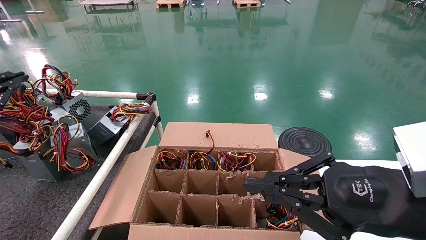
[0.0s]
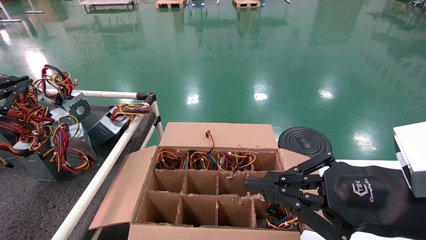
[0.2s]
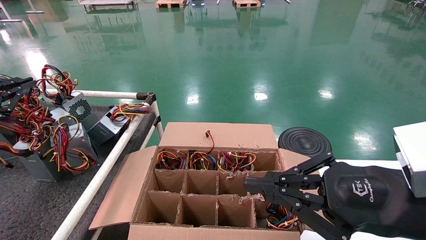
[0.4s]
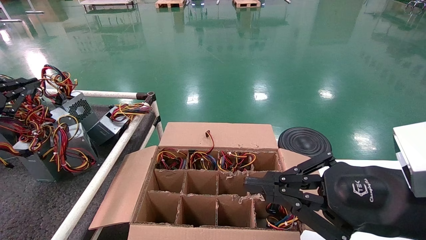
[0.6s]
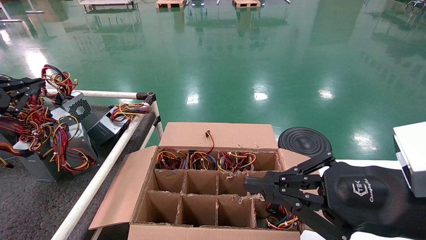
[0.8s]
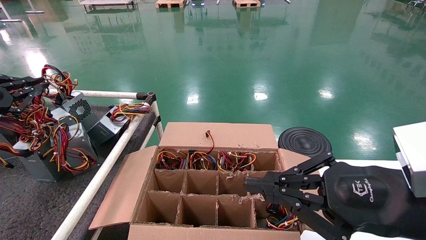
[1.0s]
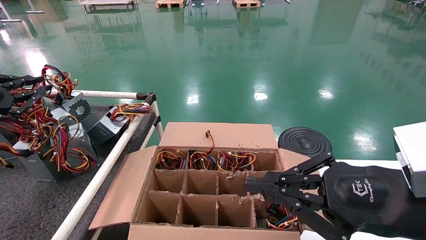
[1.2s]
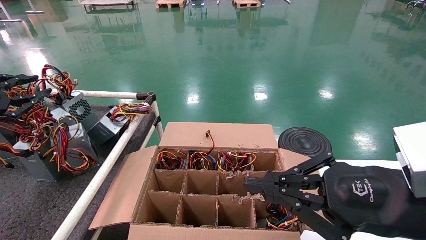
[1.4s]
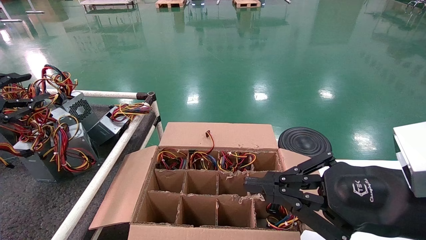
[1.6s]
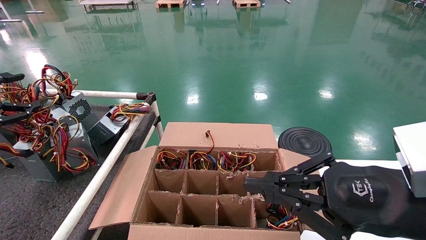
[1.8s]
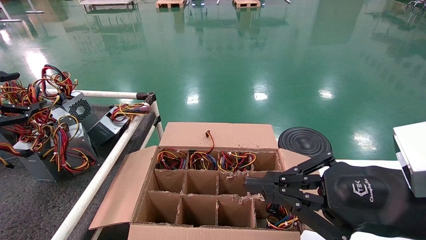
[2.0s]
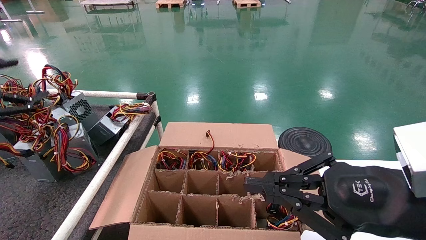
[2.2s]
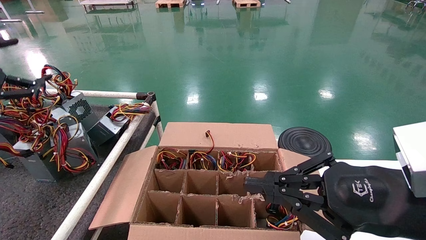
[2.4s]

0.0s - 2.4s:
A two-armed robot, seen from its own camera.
0.0s - 1.2s: The grippers stay close to where they were, moving slightly.
1.2s - 2.4s: The left gripper opens up.
